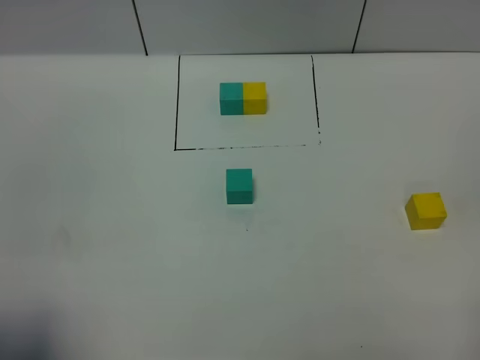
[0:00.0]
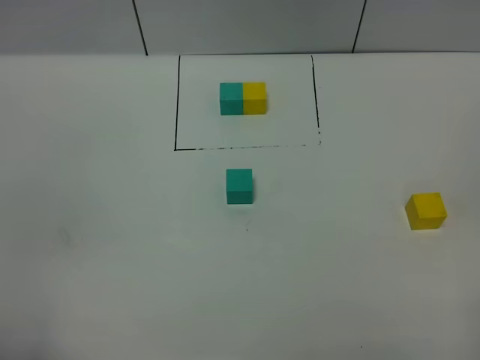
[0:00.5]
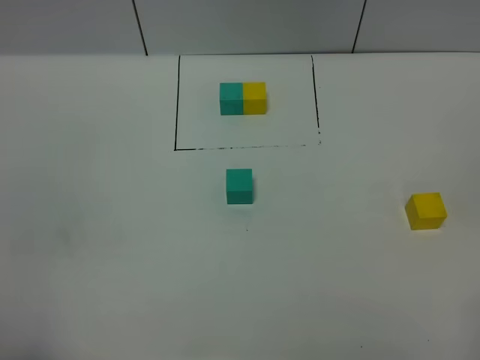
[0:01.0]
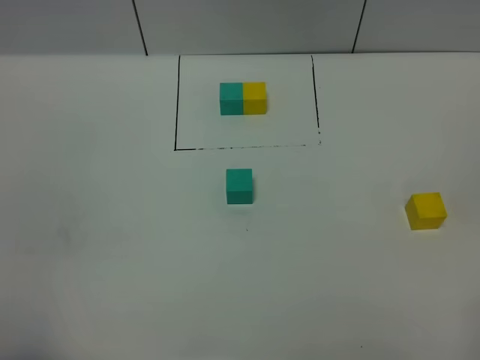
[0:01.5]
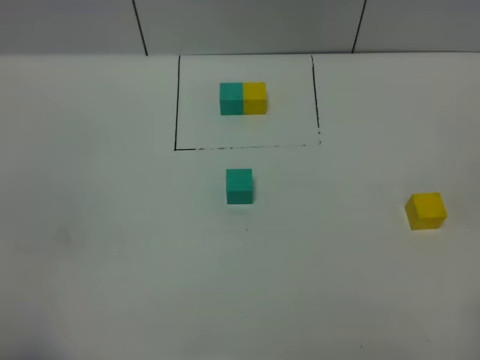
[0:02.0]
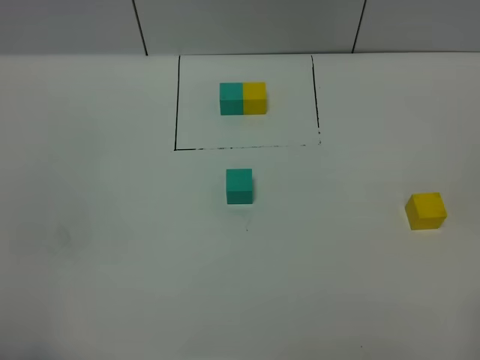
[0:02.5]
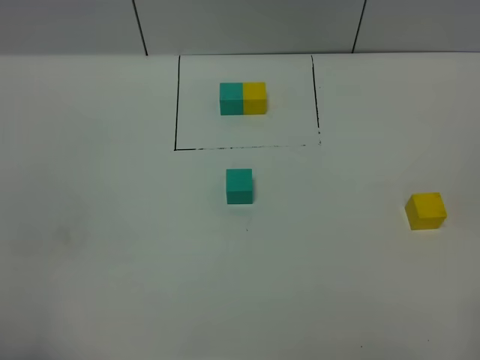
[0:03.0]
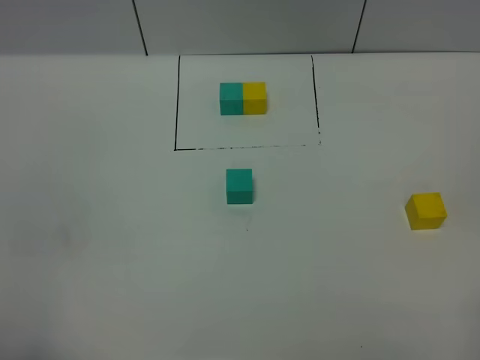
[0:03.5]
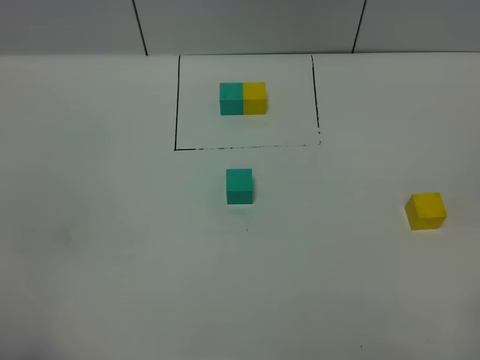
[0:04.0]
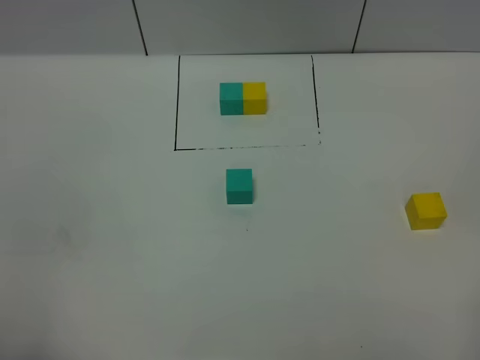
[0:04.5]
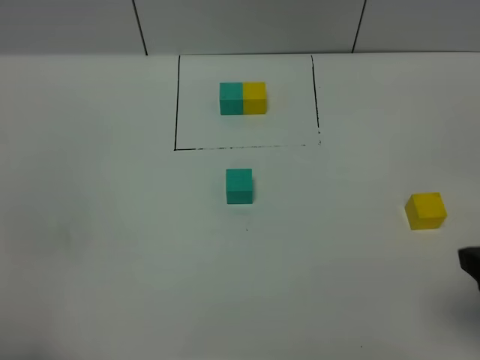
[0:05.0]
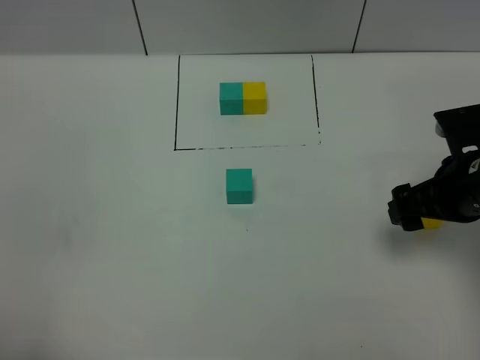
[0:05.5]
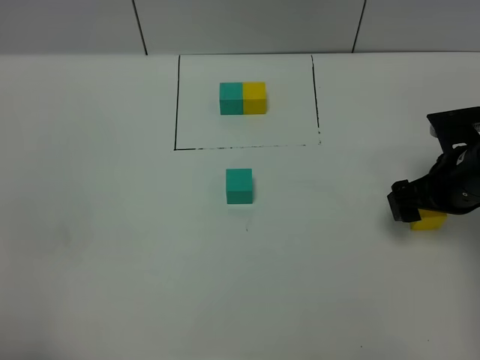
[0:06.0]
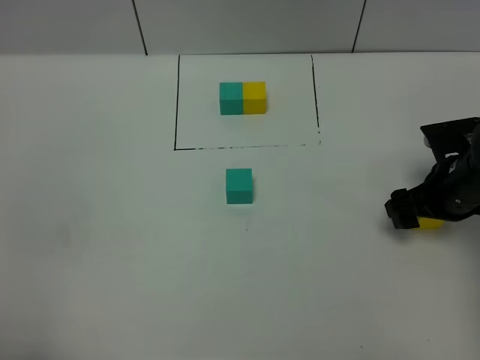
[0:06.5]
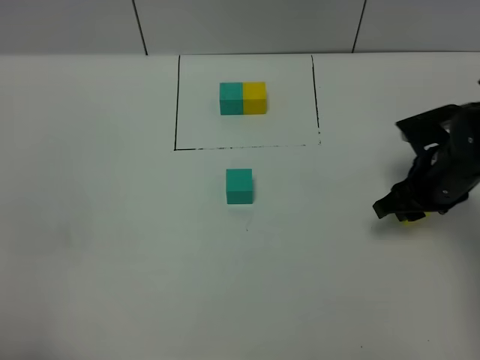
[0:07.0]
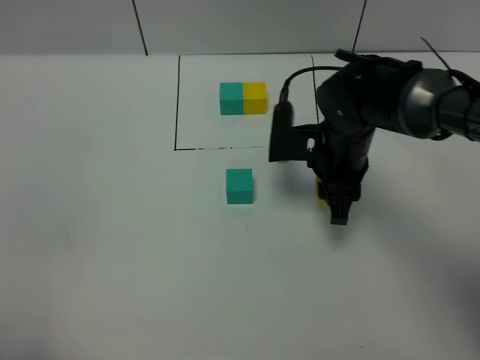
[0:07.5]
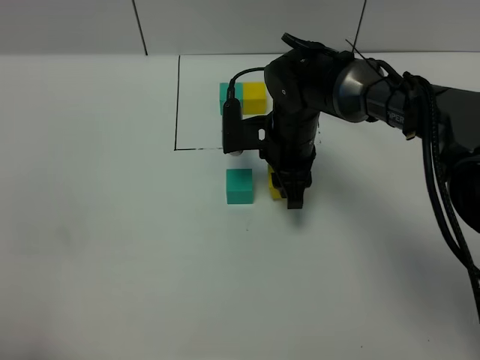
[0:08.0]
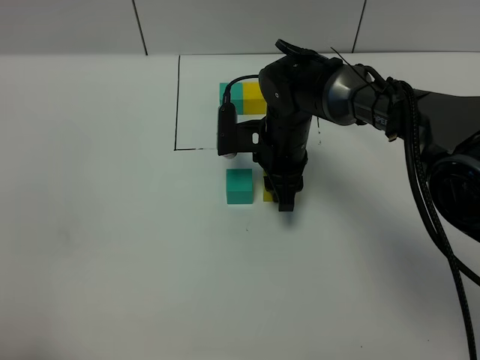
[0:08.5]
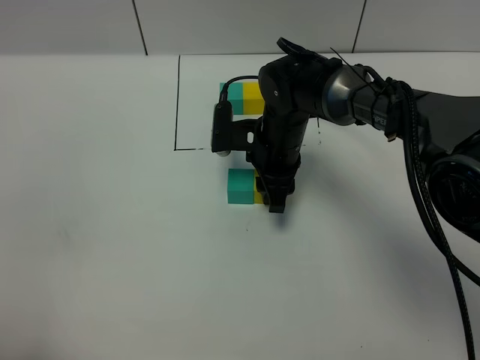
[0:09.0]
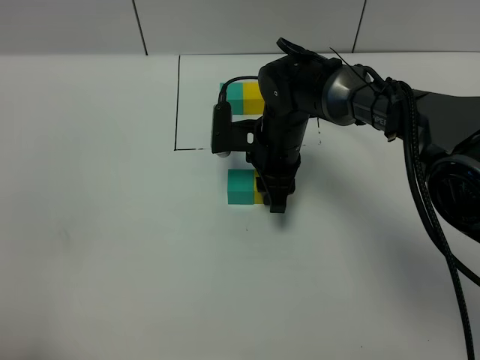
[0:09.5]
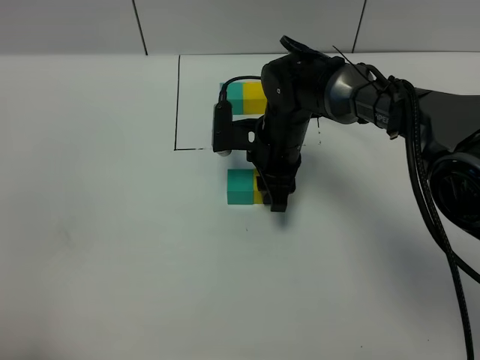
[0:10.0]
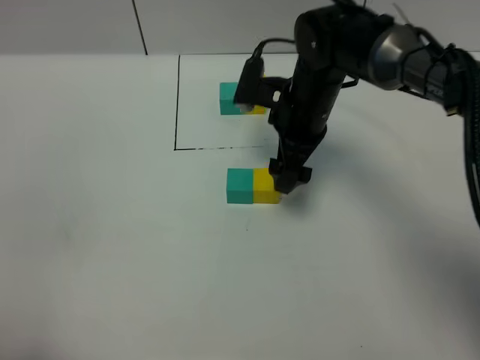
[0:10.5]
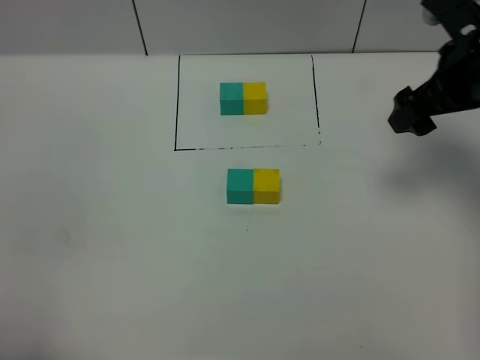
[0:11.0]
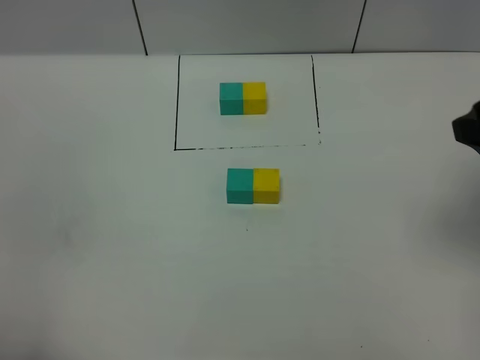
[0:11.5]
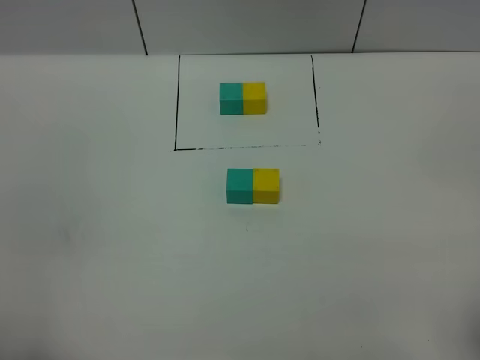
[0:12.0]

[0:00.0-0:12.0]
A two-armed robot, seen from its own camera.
Task of the whole recording: According to the building block template in front, assemble the scattered blocks together.
Step, 0:00.0 to 0:10.0: Put the yellow cube on the right of the green cube.
0:04.0 to 0:06.0: The right gripper goes some 35 cm forward and downward.
0:06.0 to 0:08.0: The right gripper heads to the left and forward, covering approximately 20 cm, and closes its fingers.
0:08.0 to 0:10.0: There are only small adjustments of the grippers.
0:10.0 to 0:12.0: The right gripper moves backward, to the right and upward, approximately 40 cm, and opens up.

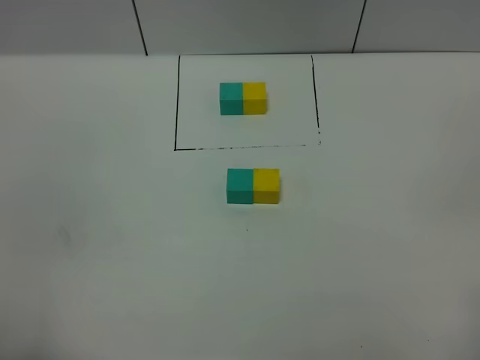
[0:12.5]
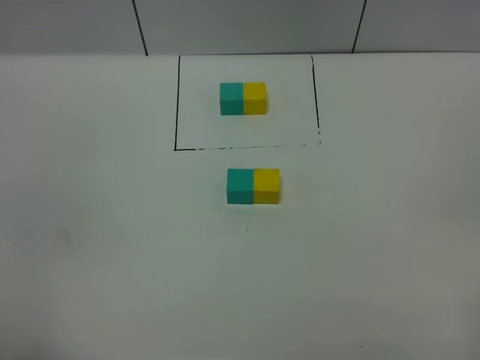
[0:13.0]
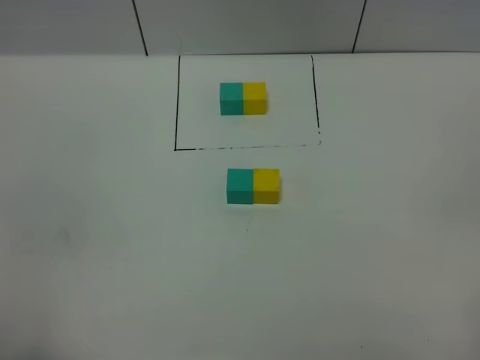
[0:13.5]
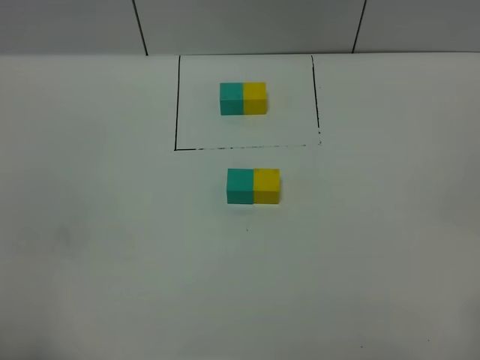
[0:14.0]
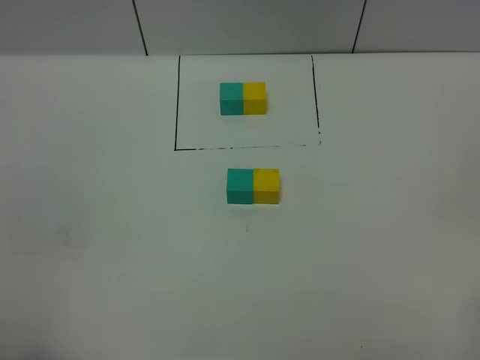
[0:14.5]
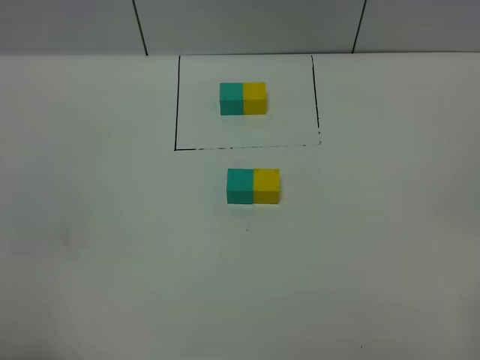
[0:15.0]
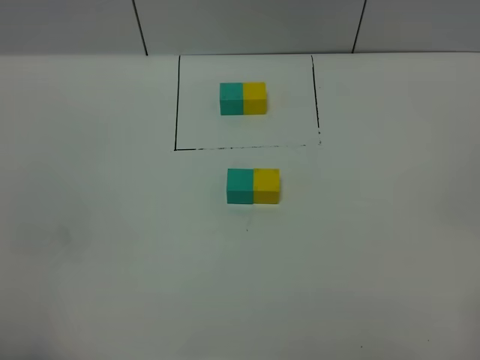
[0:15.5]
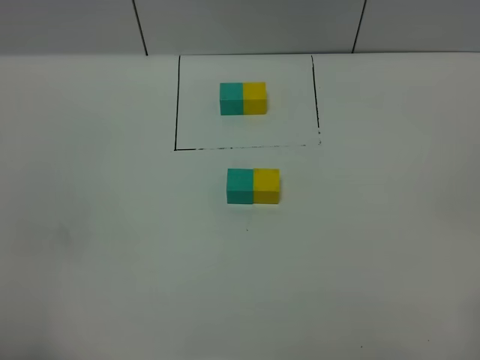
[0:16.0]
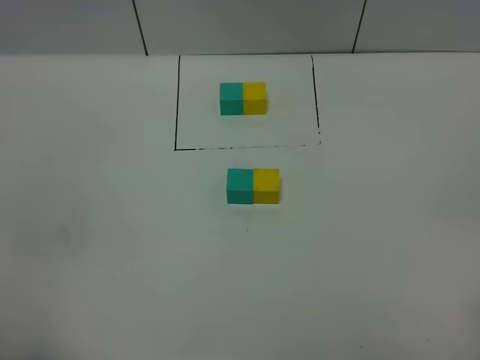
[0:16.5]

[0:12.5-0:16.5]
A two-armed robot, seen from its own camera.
Task of the whole recording: According to the building block template in front, assemble the scattered blocks together.
0:14.5 to 0:16.5: The two grippers keep their place.
